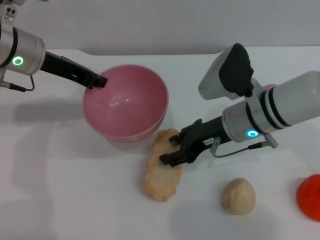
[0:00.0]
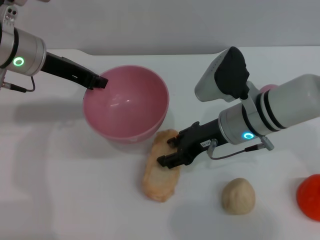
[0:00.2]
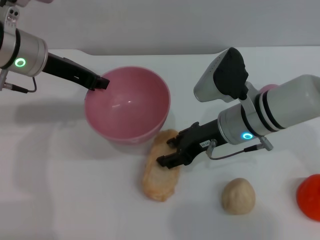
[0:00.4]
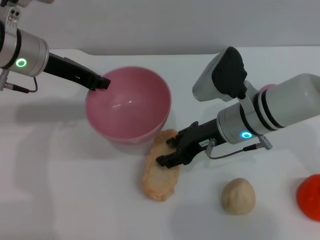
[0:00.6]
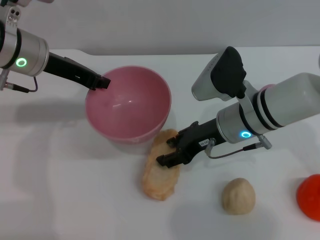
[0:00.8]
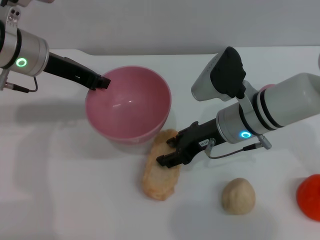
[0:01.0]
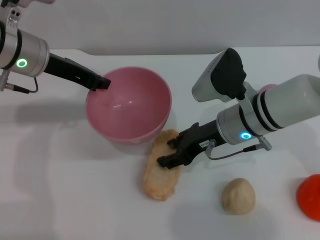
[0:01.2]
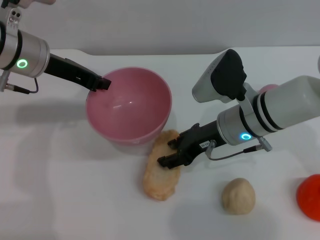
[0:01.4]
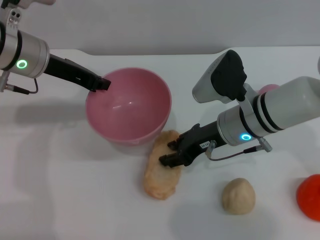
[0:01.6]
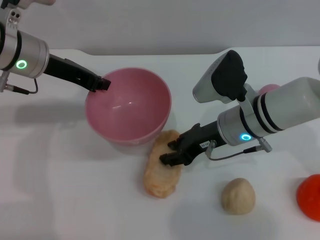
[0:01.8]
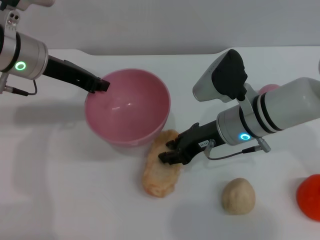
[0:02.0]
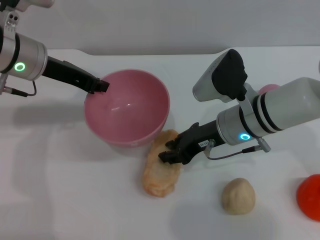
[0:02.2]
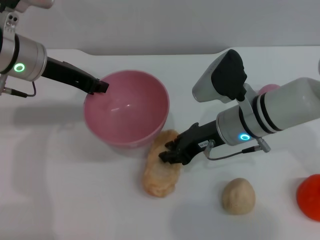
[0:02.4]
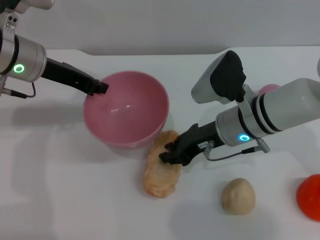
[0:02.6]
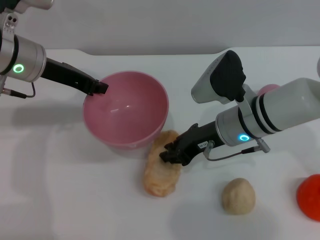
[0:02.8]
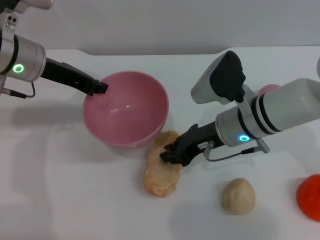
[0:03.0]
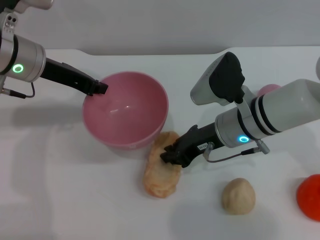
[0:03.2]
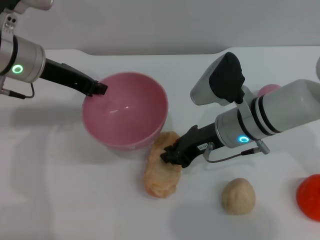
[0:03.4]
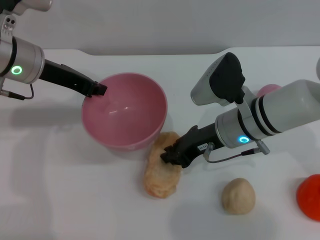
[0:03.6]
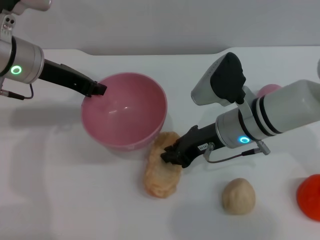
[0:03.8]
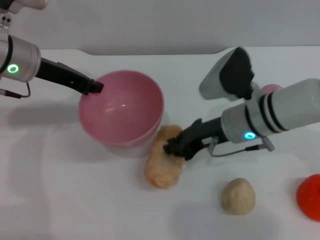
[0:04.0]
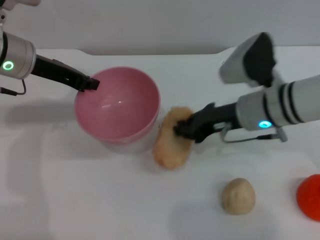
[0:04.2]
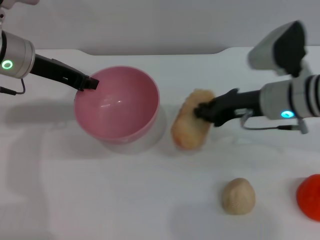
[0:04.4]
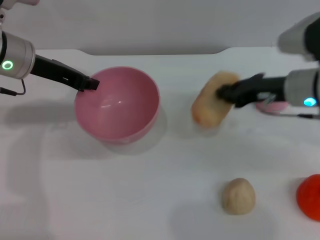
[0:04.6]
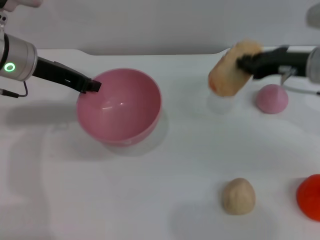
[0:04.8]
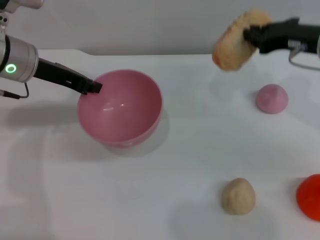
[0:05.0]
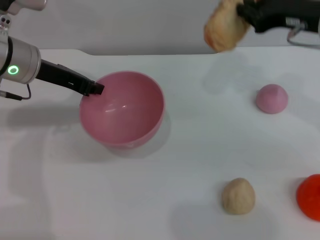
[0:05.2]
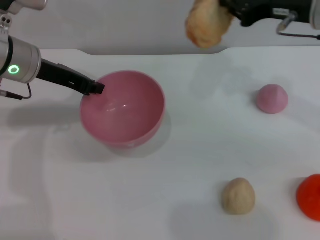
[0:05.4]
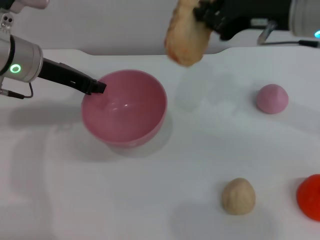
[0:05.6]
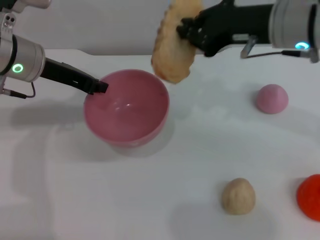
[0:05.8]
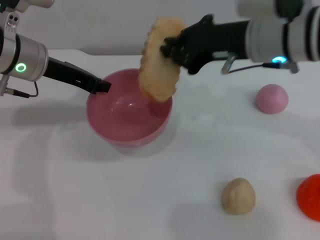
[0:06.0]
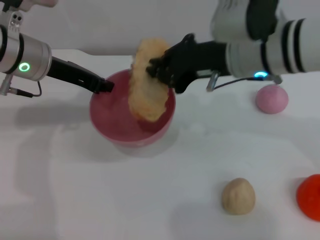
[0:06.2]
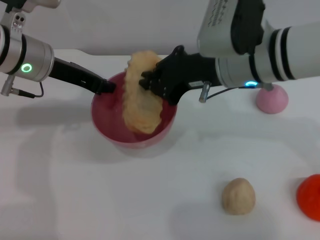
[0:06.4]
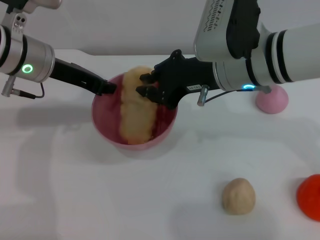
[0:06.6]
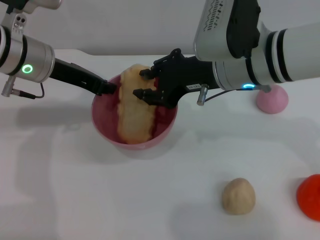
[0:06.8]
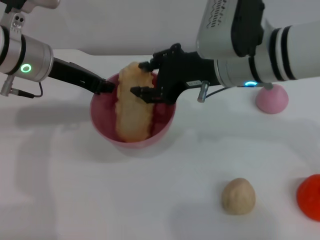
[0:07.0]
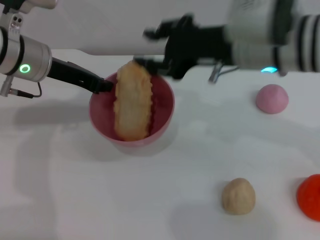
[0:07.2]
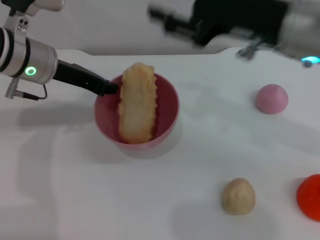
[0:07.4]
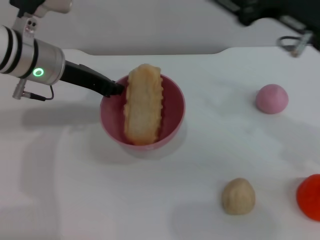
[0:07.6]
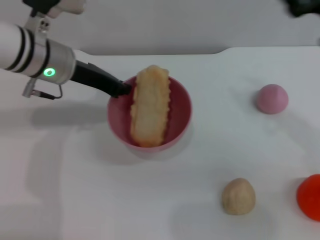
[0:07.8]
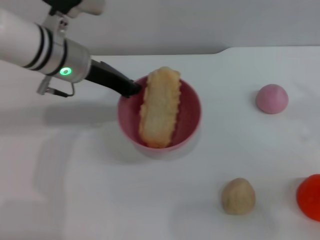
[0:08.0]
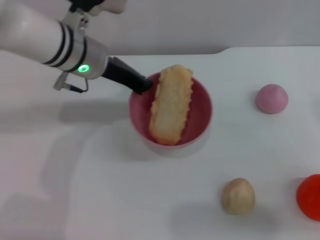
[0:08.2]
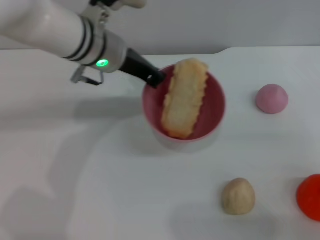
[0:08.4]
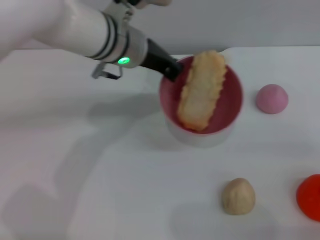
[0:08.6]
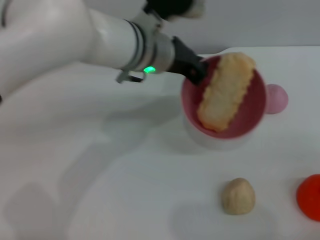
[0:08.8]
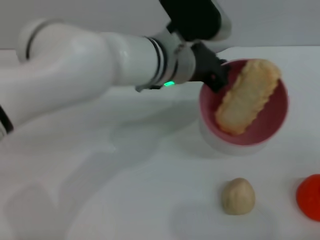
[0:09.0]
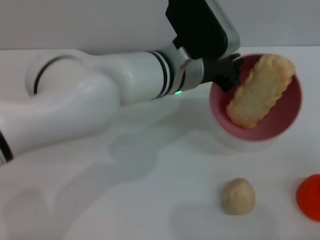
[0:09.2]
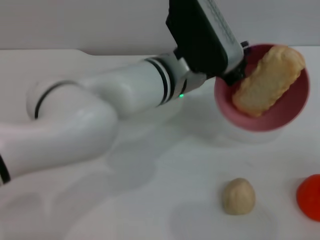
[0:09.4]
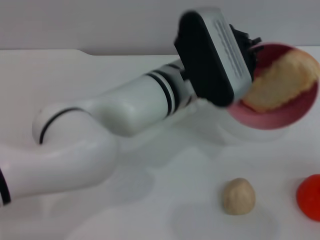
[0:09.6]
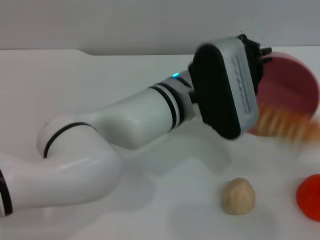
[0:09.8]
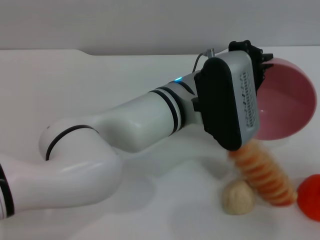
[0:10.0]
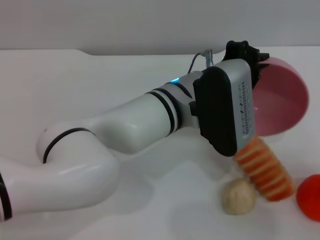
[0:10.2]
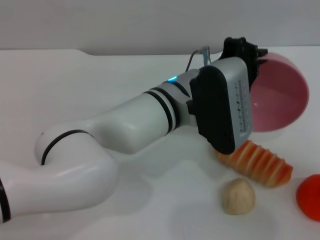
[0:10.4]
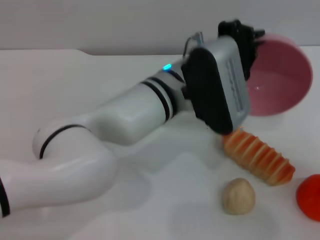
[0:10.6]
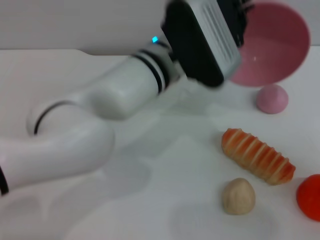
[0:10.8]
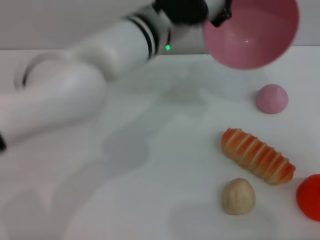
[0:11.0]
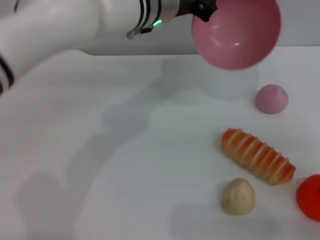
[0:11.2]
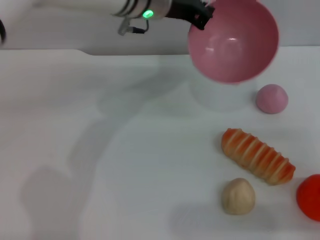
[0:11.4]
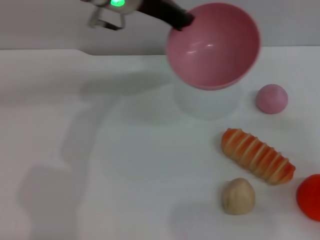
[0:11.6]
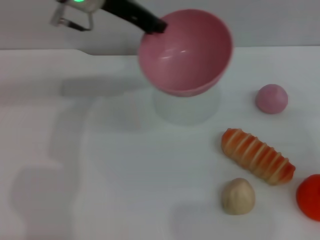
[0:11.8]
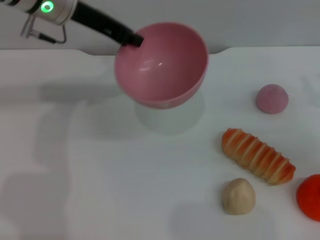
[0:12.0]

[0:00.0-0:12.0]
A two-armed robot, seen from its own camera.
Task of the whole recording: put the bread into the pink bowl and pour it out repeatedly.
Step, 0:00.0 to 0:04.4: Pick up the bread with the right gripper.
Step, 0:04.6 to 0:07.2: Place the bread into the bowl.
Step, 0:07.4 to 0:11.2: Pour the bread out of the bowl.
0:00.0 to 0:01.6: The two grippers keep their place.
0:01.6 to 0:03.0: The right gripper closes up.
0:03.0 to 0:04.4: The right gripper travels to the right by approximately 5 cm.
0:04.4 to 0:06.0: The right gripper moves upward, approximately 10 cm.
0:06.0 to 0:07.6: The right gripper shifts about 10 cm to the right and backward, and opens its fingers.
0:07.6 to 0:09.0: The left gripper heads to the right, covering approximately 20 cm; the right gripper travels to the right, downward and backward by approximately 25 cm.
0:09.0 to 0:10.4: The left gripper travels backward by approximately 5 cm.
0:10.4 to 0:12.0: The right gripper goes roughly 15 cm forward, while the left gripper is displaced to the left, forward and upward by approximately 25 cm.

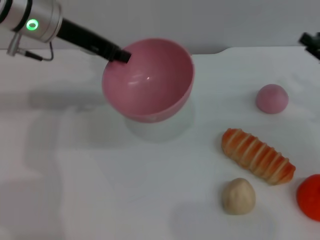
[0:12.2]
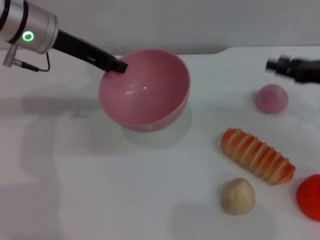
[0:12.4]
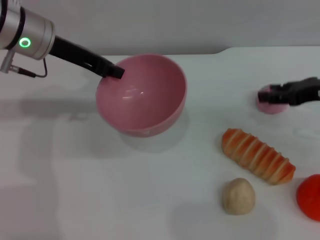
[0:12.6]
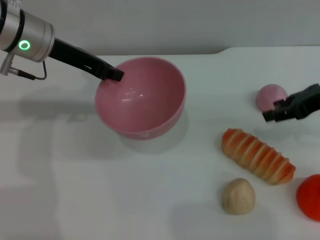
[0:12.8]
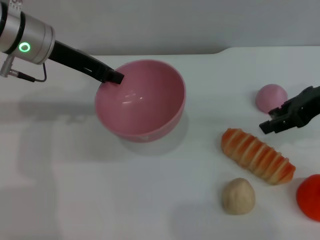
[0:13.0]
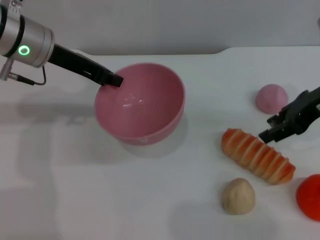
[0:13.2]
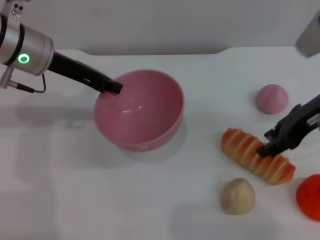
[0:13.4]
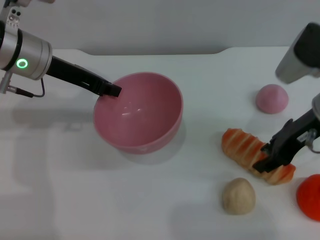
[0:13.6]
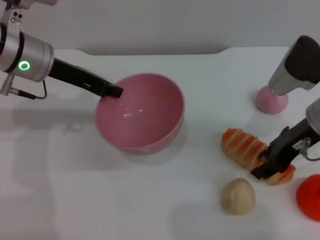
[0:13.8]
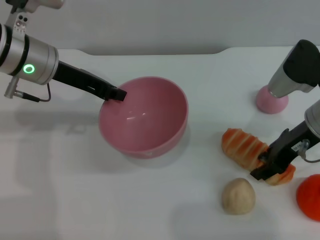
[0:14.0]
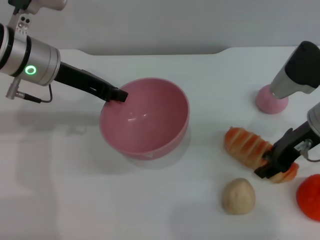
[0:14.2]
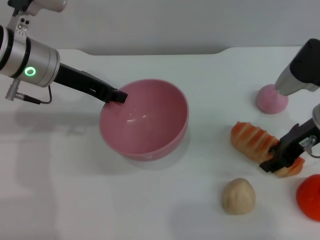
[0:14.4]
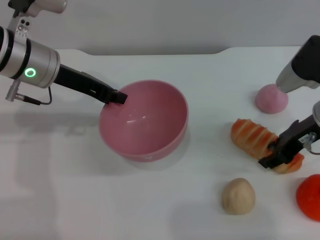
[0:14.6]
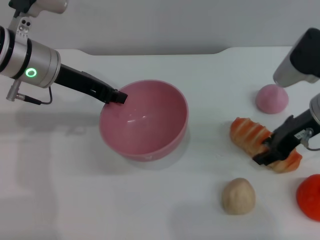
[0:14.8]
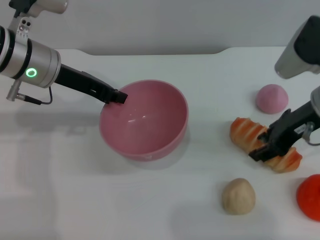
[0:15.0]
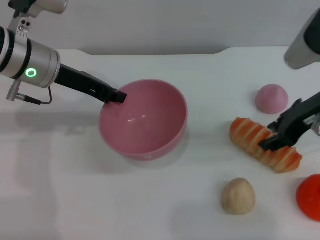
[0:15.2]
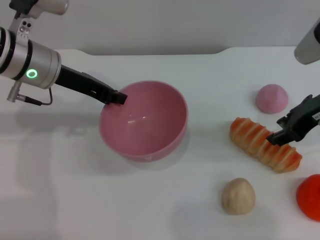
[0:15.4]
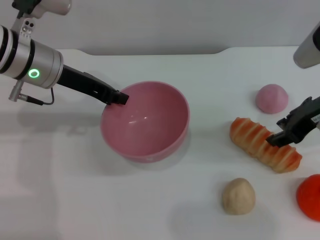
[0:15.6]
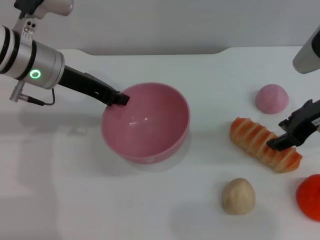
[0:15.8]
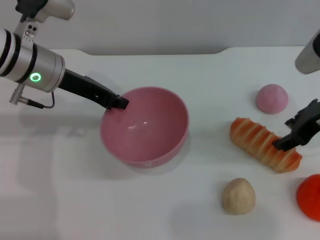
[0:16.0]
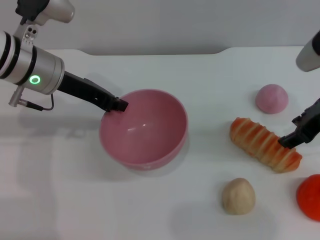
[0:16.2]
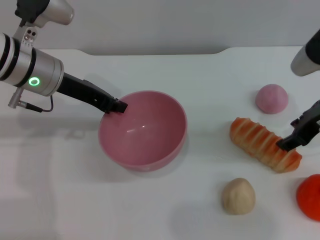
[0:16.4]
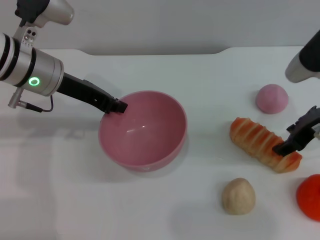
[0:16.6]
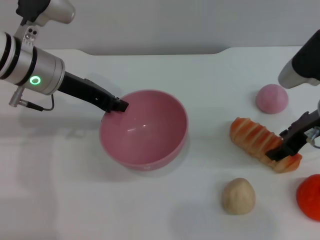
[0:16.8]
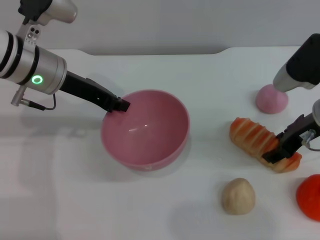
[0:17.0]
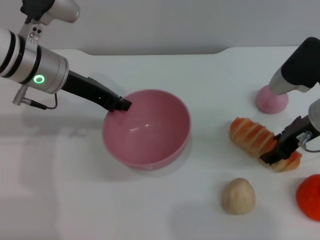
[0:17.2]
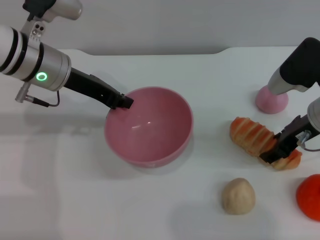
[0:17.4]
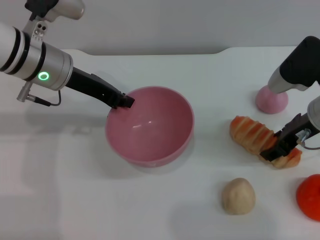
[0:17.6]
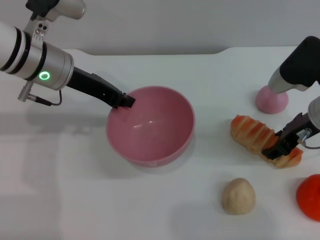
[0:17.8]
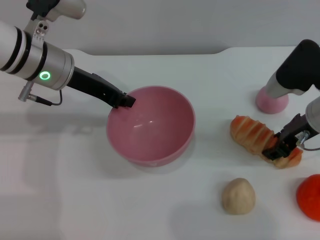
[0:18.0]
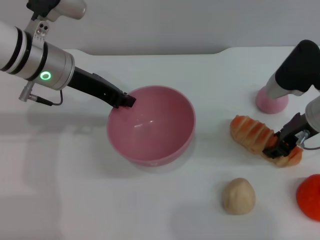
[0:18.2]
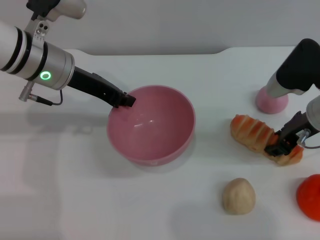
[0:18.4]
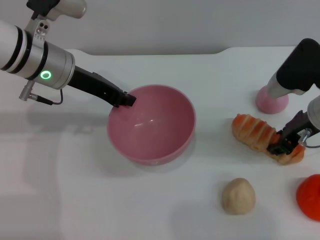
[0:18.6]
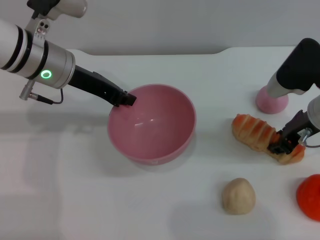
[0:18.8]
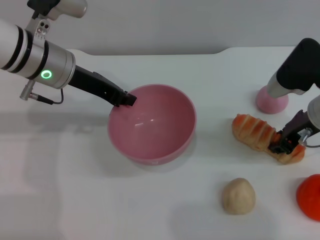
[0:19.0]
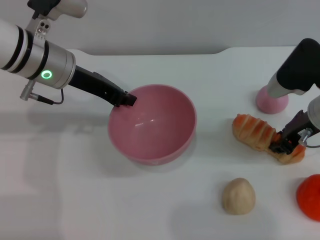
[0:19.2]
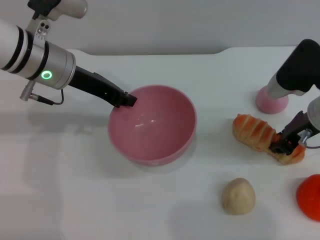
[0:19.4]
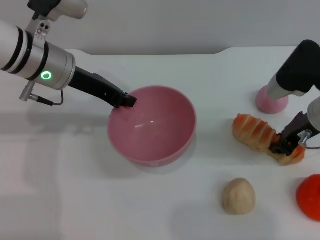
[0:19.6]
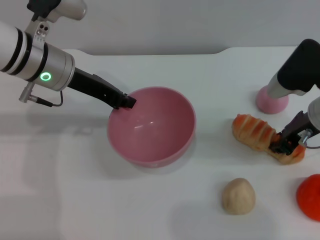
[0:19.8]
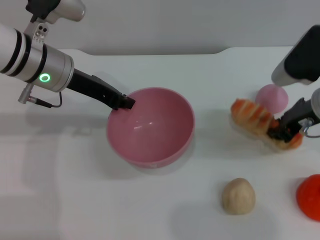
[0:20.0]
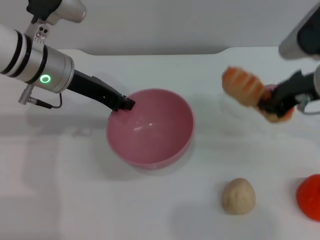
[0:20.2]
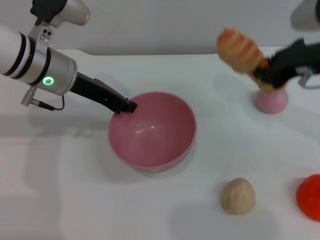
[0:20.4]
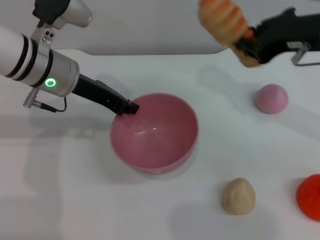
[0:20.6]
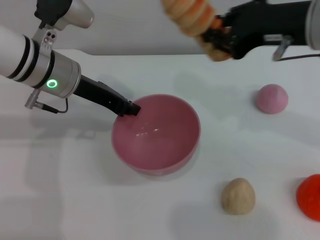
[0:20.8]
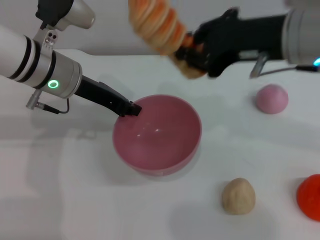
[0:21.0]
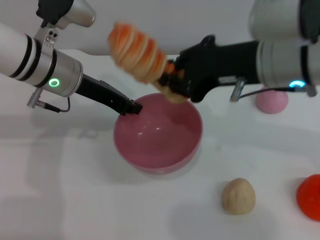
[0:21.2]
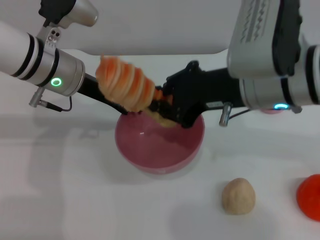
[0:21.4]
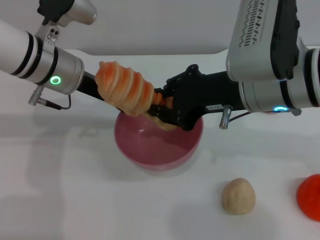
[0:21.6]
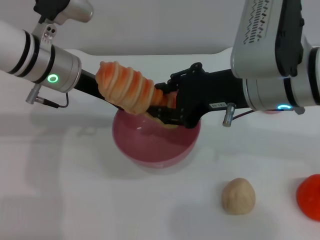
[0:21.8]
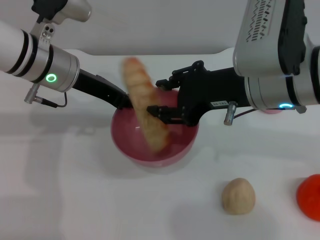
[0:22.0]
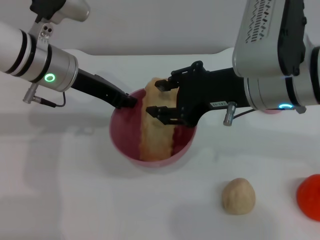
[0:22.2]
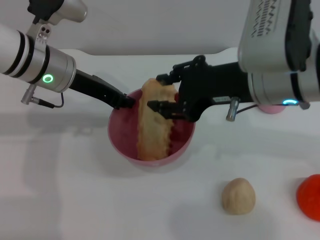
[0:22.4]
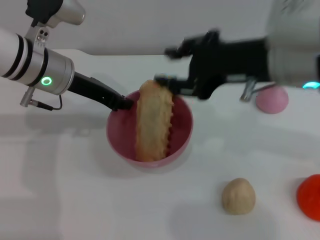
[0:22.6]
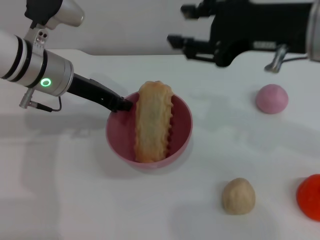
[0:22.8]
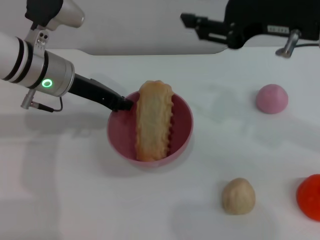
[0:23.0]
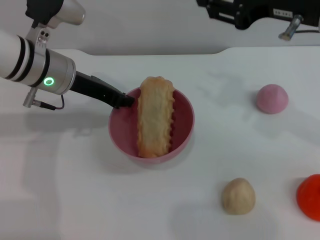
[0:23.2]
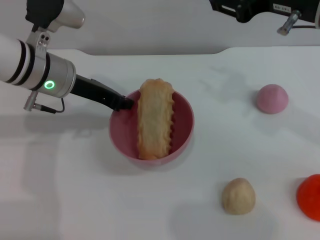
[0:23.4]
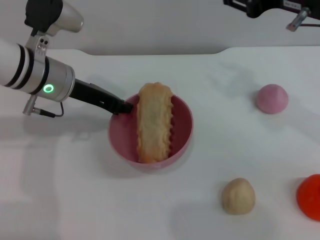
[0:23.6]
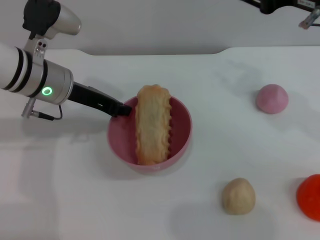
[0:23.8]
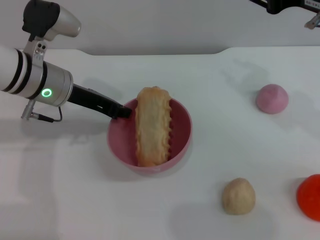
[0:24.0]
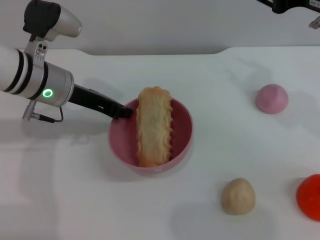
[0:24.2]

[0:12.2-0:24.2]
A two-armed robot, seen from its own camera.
Task of the whole recording: put the bread into the pink bowl and pour it out repeatedly.
Step, 0:12.2 to 0:19.8: Pick up the bread with the right gripper.
Step, 0:20.2 to 0:23.0: Place the bread into the bowl.
0:12.2 to 0:13.8: The right gripper shifts some 10 cm to the left. The left gripper changes place by some 5 cm.
0:13.8 to 0:18.2: The grippers stay close to where they were, moving slightly.
0:18.2 to 0:19.8: The right gripper closes up.
0:19.8 to 0:21.2: The right gripper moves upward and to the left, approximately 15 cm.
0:21.2 to 0:22.6: The right gripper opens.
0:22.6 to 0:24.2: The right gripper is displaced to the right by some 10 cm.
